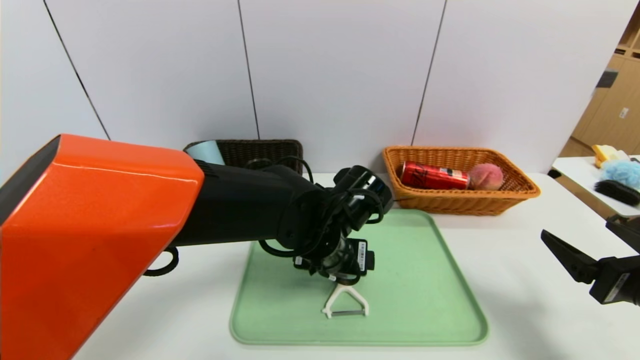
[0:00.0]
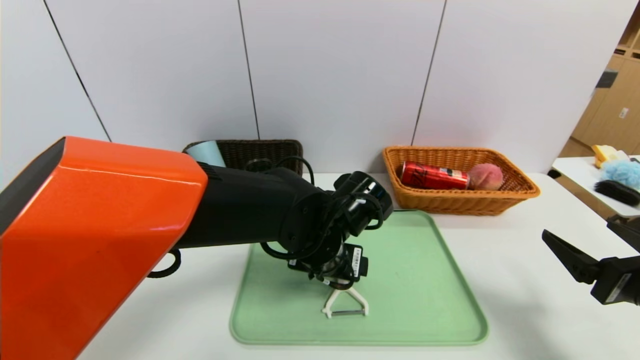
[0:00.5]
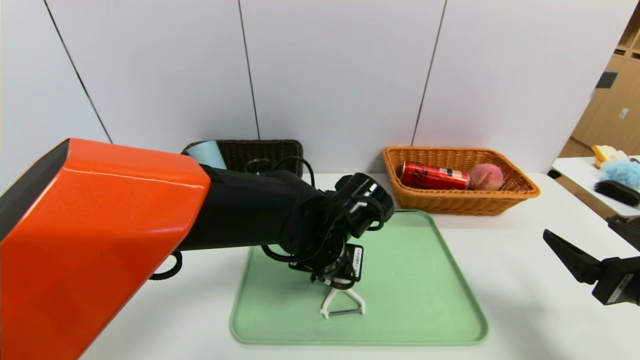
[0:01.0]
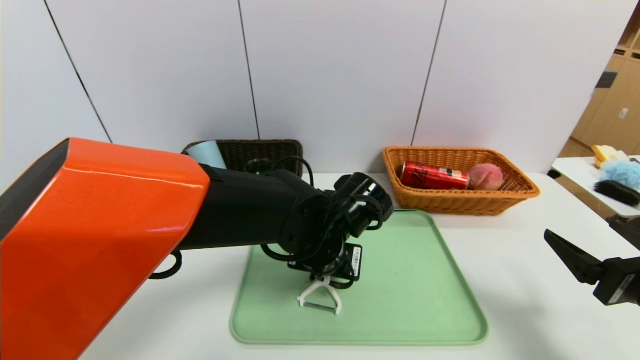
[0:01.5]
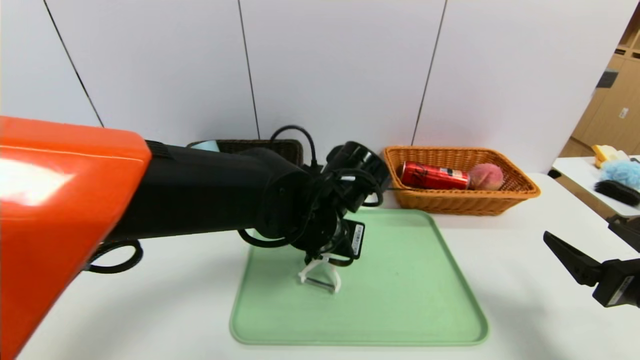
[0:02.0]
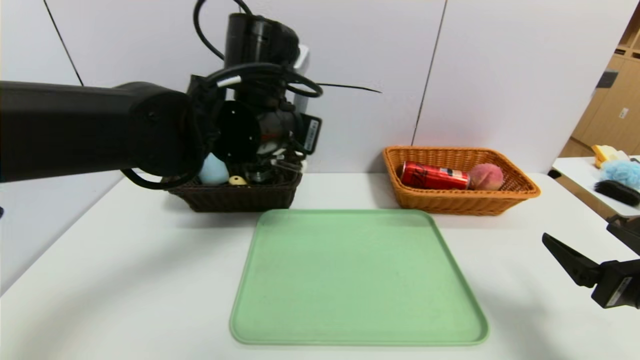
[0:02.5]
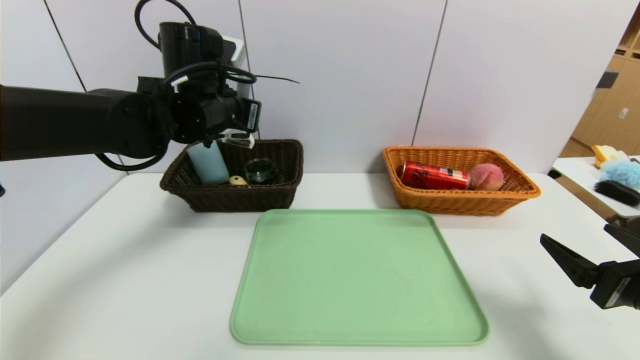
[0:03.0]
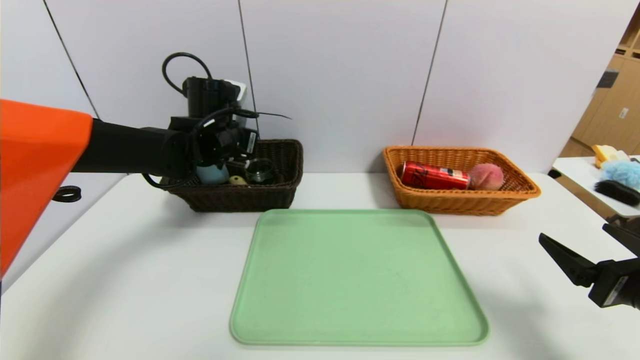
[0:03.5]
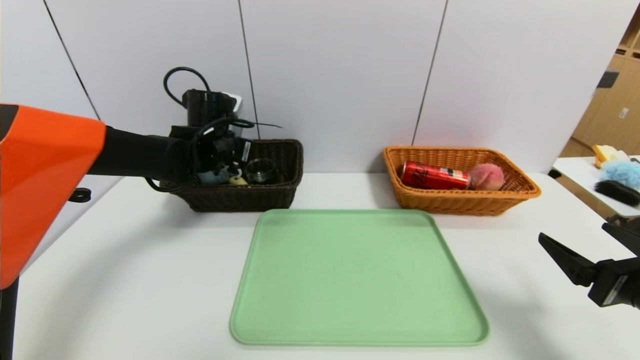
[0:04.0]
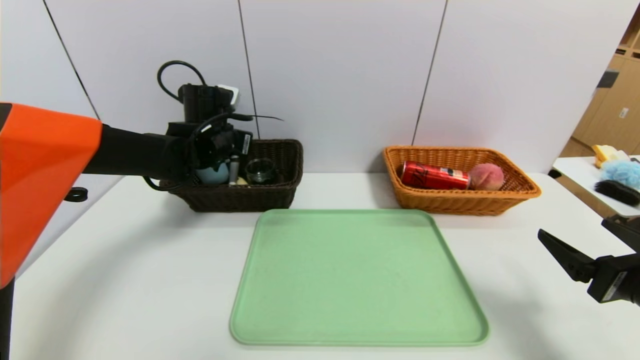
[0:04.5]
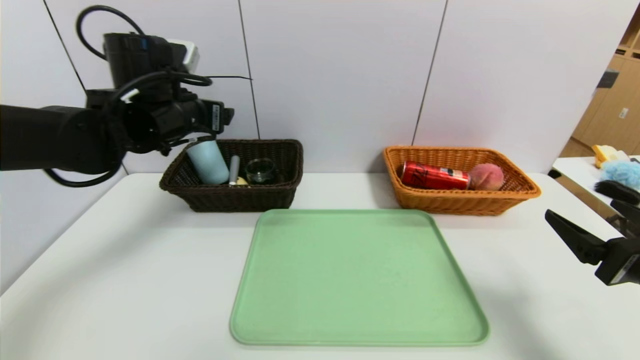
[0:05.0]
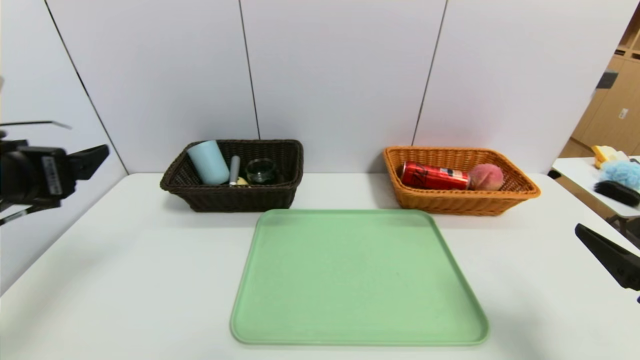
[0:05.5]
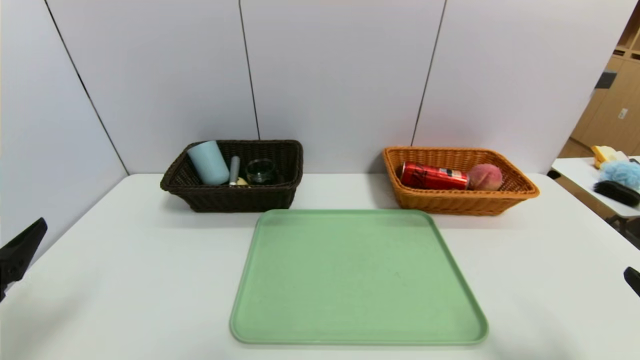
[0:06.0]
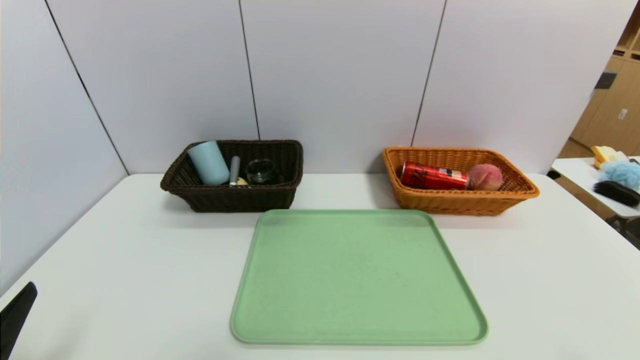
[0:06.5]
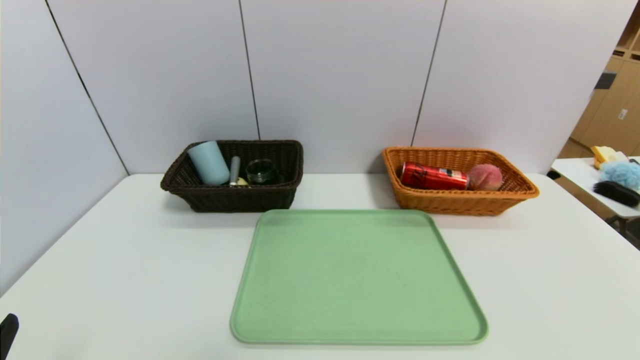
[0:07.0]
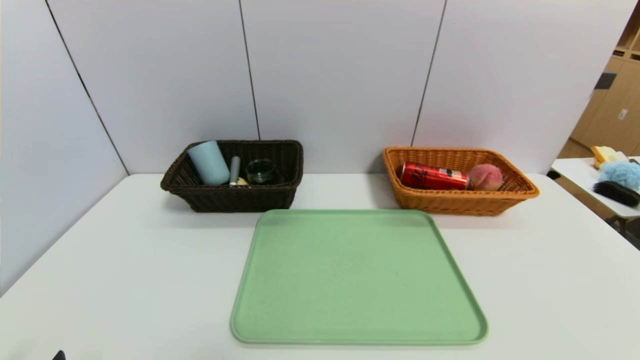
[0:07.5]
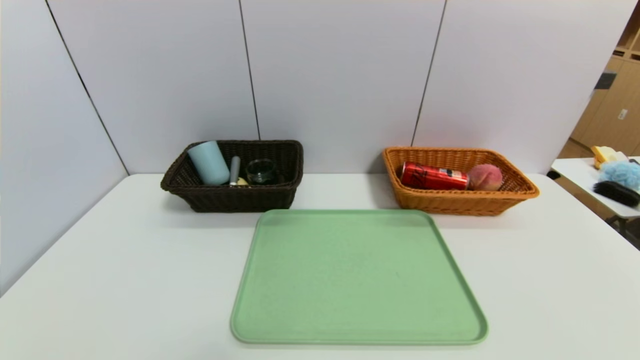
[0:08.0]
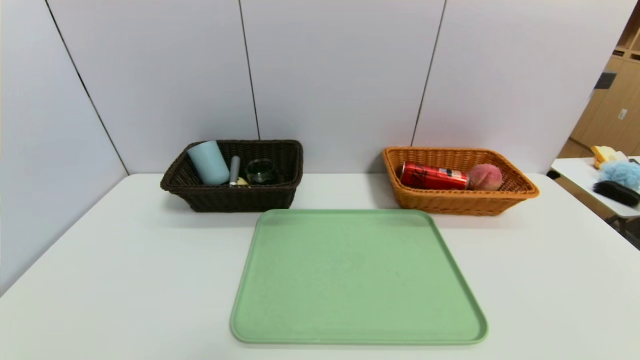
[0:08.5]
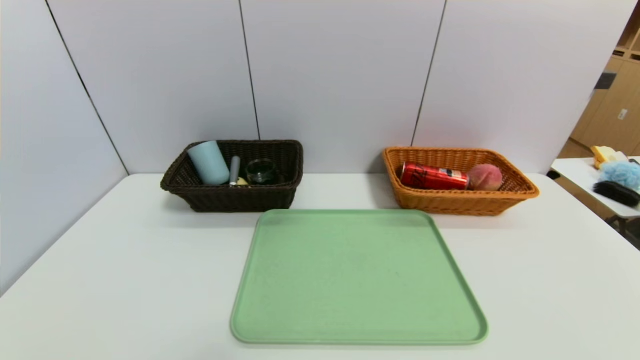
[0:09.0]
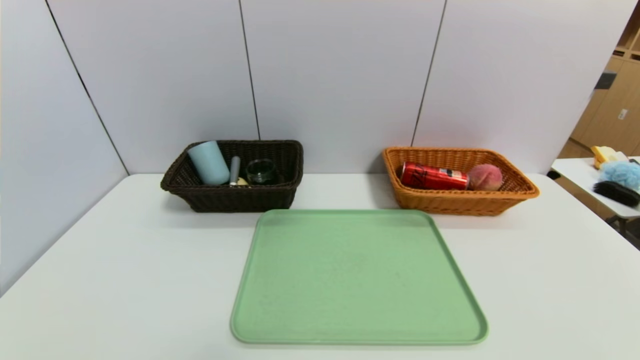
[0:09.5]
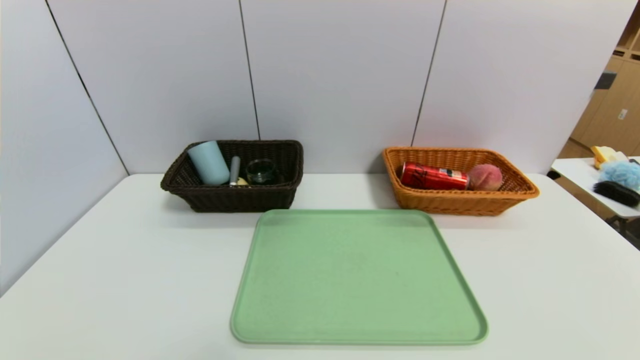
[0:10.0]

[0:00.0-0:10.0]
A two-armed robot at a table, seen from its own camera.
Task of the whole recording: place the food in the right basket with the right gripper, and place the non food items in the left basket with the left gripper.
Step, 0:00.0 to 0:06.0: Grasp the peeler and put it in the left basket.
0:00.0 to 0:02.0: The left gripper closes up.
0:02.0 to 0:04.0: The left gripper shifts roughly 25 cm to the left and forward.
0:04.0 to 0:06.0: The right gripper travels backward by about 10 cm. The left gripper travels backward by roughly 35 cm, and opens its fingers.
0:06.0 to 0:08.0: The grippers both shift downward and backward by roughly 15 cm.

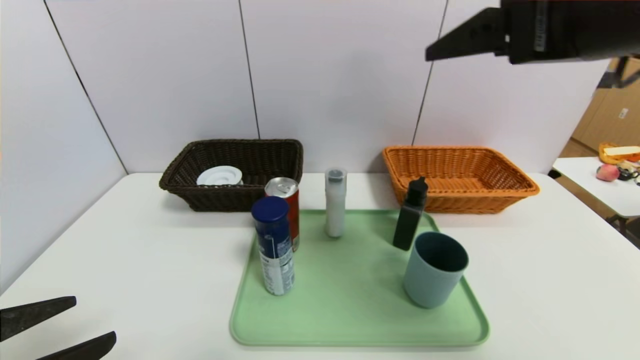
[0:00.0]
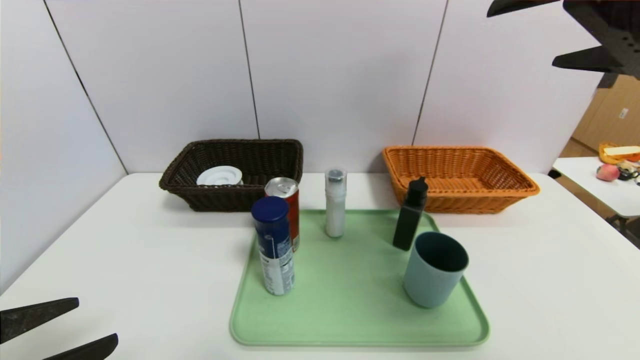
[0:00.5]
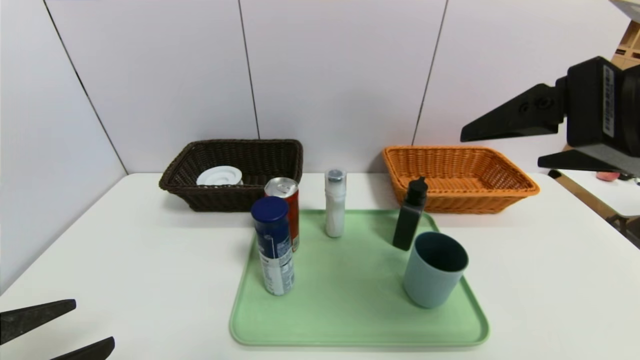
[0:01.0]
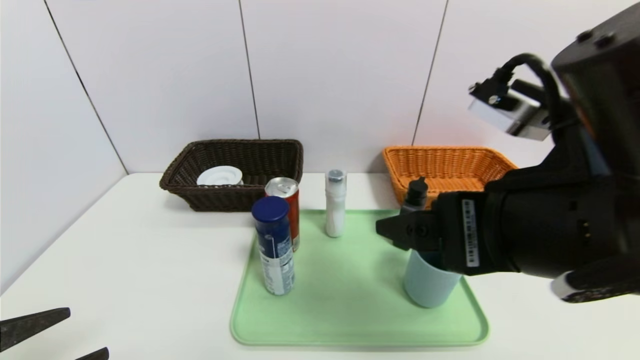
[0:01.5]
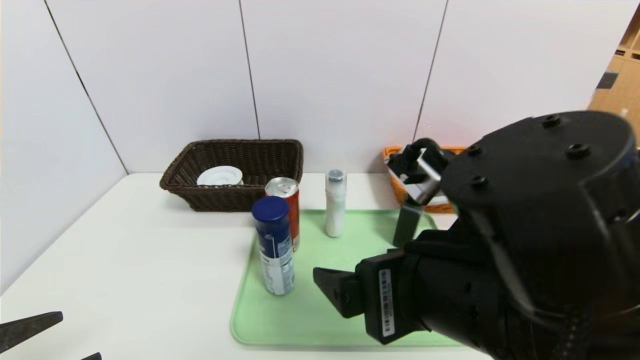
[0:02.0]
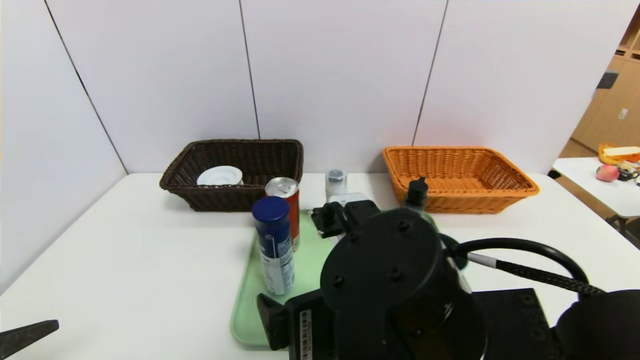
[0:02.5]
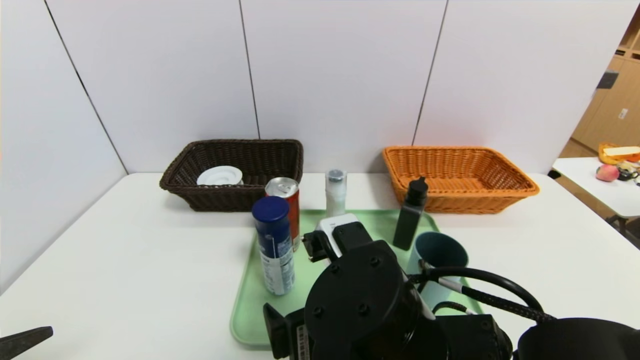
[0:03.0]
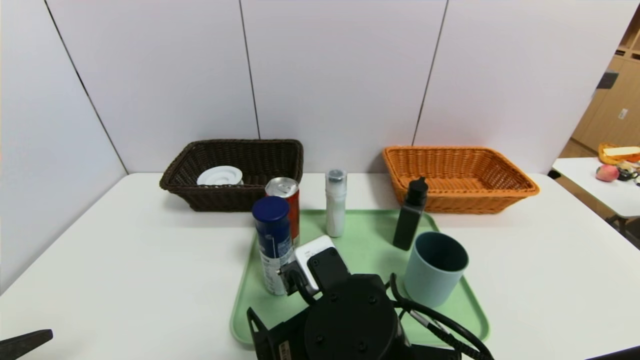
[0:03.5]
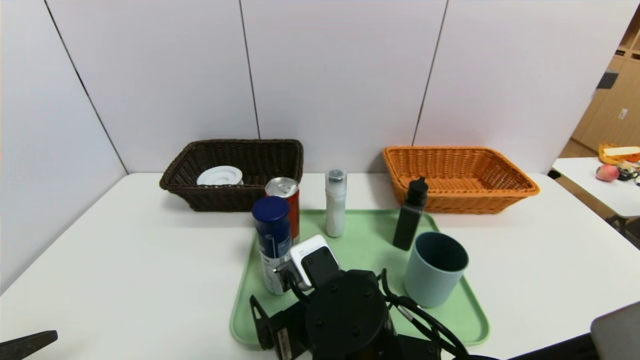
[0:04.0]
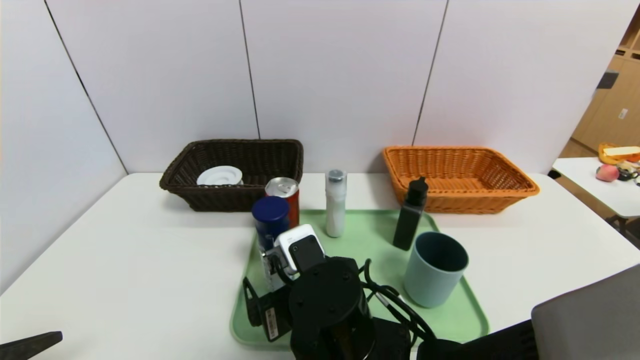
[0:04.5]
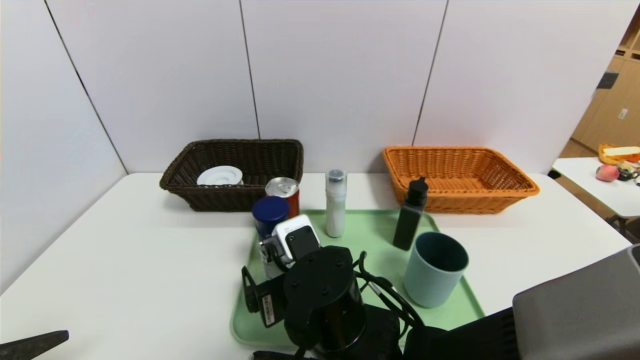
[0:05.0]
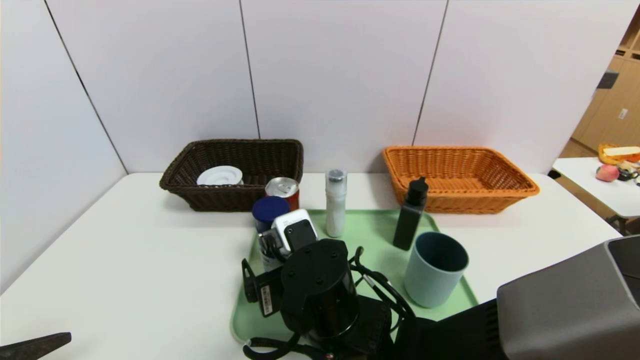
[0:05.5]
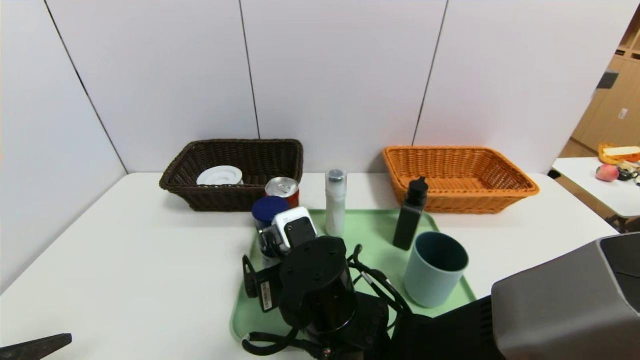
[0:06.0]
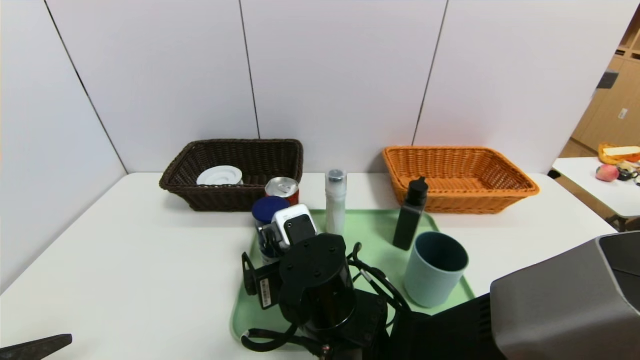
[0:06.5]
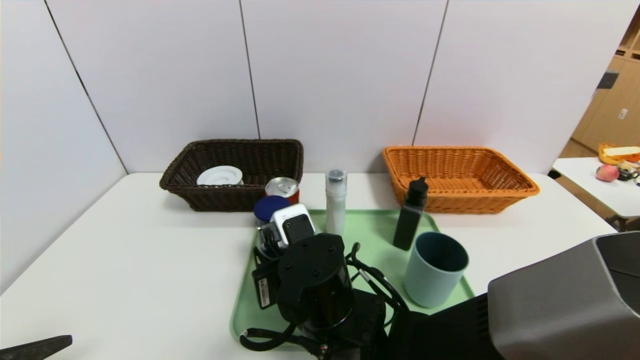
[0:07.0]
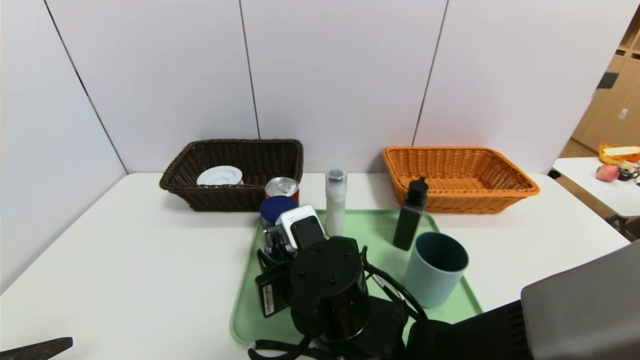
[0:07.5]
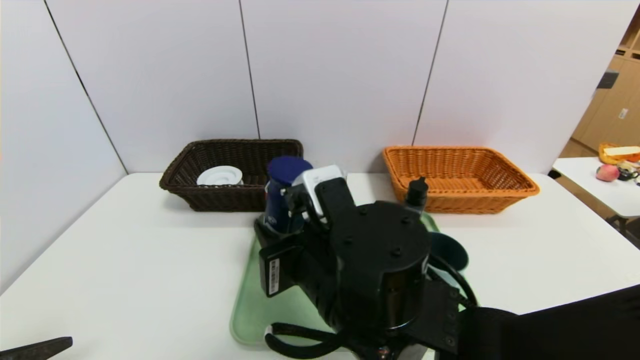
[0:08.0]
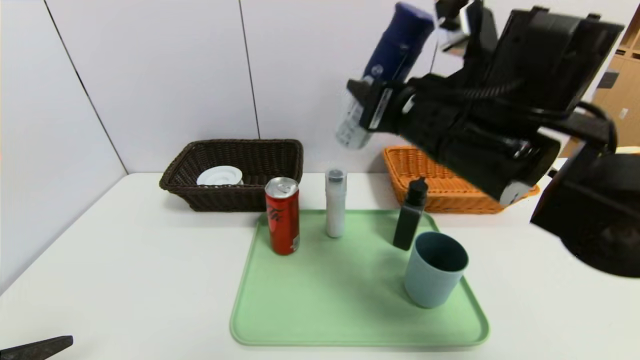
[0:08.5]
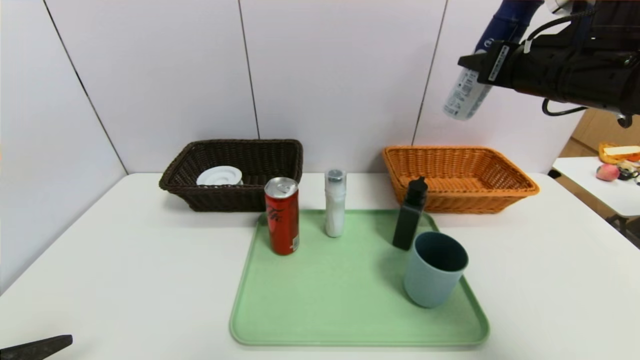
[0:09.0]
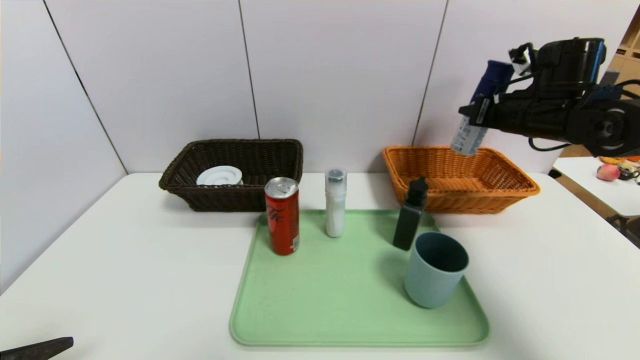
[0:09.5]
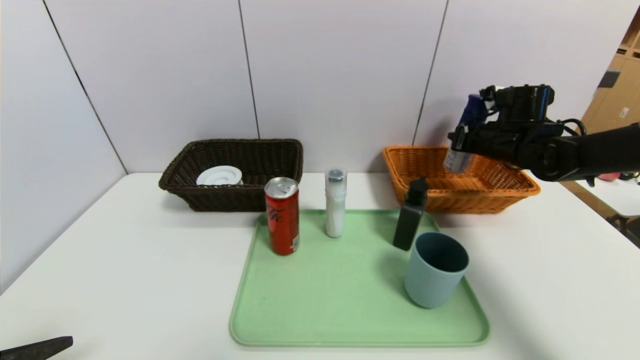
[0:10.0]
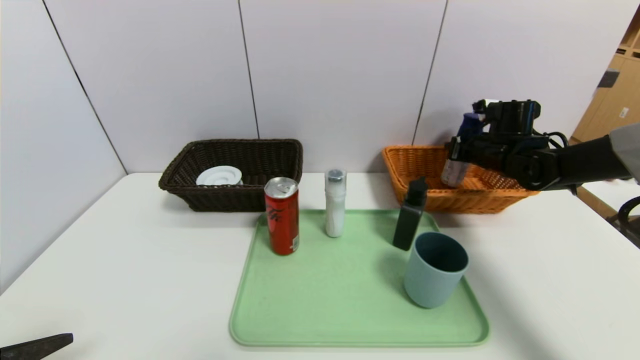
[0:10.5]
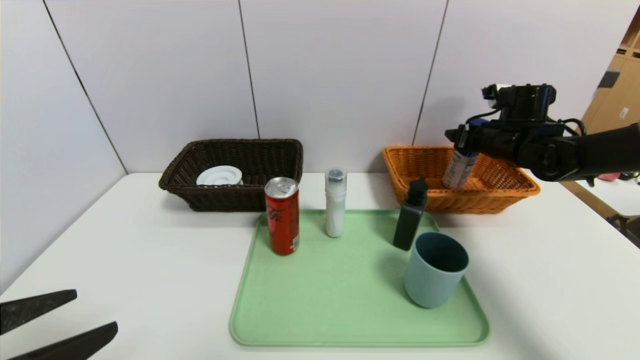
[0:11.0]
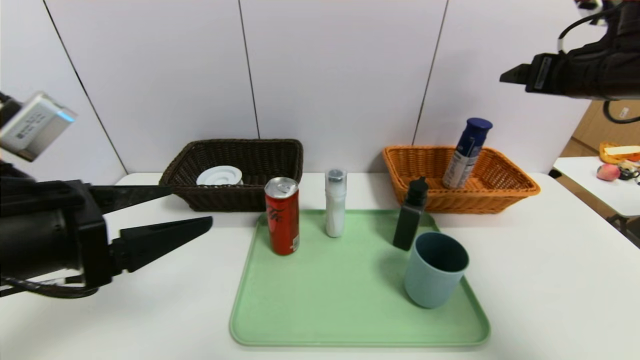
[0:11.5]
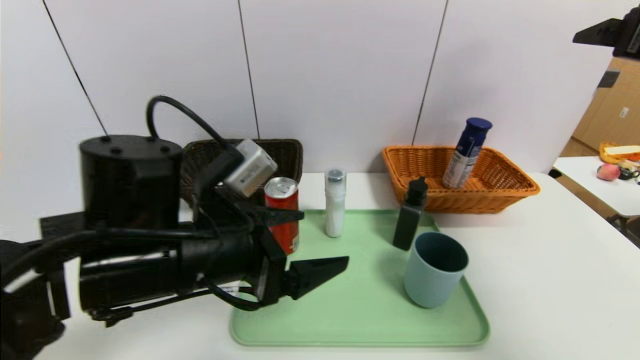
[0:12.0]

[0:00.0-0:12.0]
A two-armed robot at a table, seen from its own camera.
Task of the whole recording: place the food in the right basket with the right gripper, and place the non food items in the left basket with the left gripper.
0:00.0 to 0:02.0: The right gripper goes roughly 20 cm downward and to the left.
0:02.0 to 0:04.0: The right gripper shifts approximately 15 cm downward and to the left.
0:04.0 to 0:06.0: The right gripper shifts by approximately 5 cm.
0:06.0 to 0:08.0: The right gripper goes roughly 5 cm upward, and closes its fingers.
0:08.0 to 0:10.0: The right gripper goes approximately 40 cm to the right and forward.
0:10.0 to 0:12.0: The right gripper moves backward and upward, roughly 25 cm, and opens its fingers. The left gripper shifts roughly 25 cm to the right and forward.
